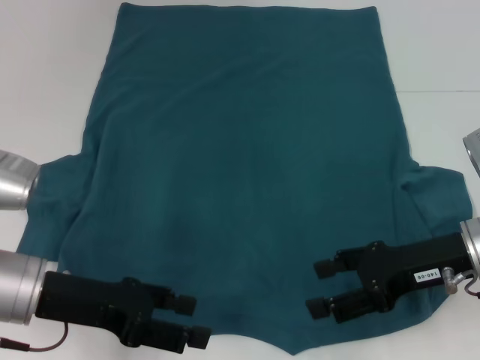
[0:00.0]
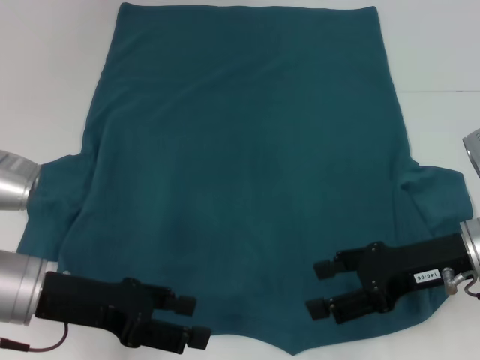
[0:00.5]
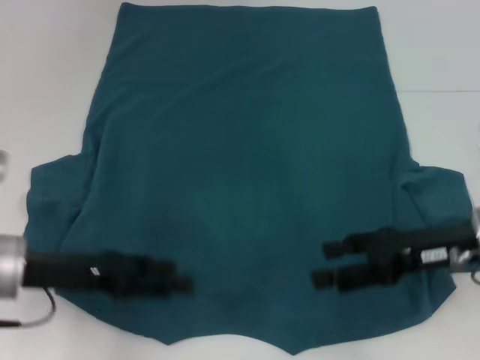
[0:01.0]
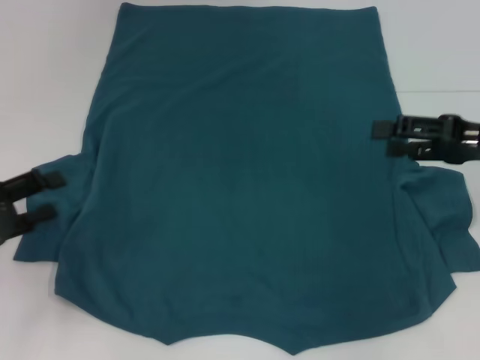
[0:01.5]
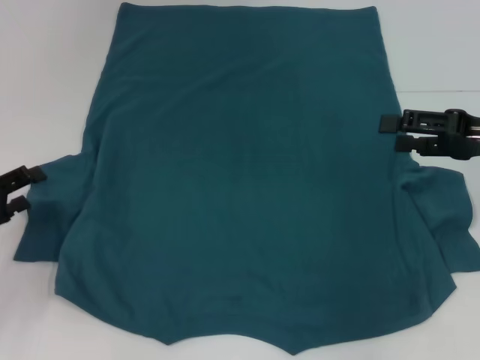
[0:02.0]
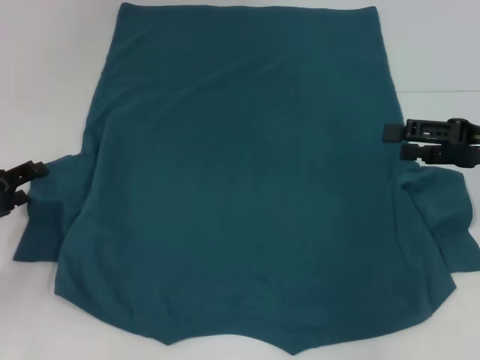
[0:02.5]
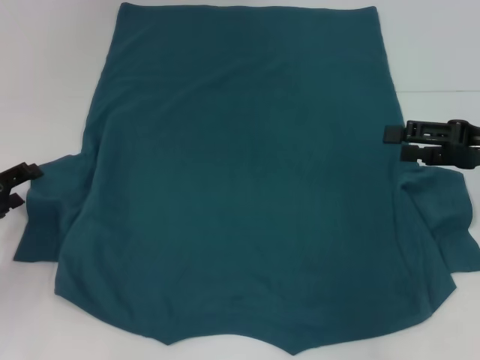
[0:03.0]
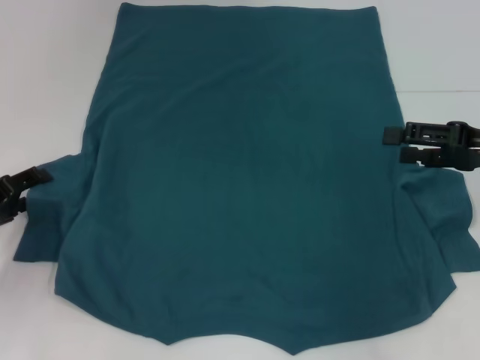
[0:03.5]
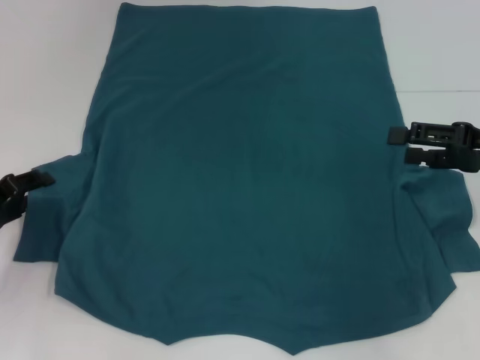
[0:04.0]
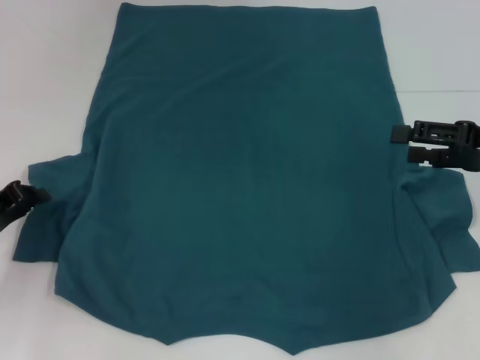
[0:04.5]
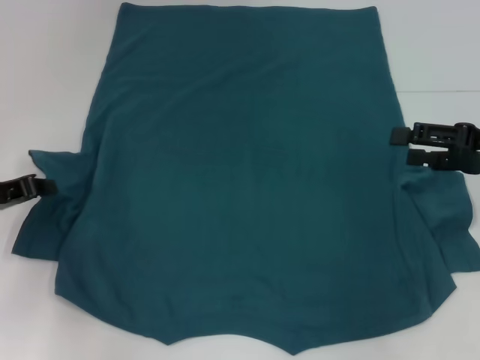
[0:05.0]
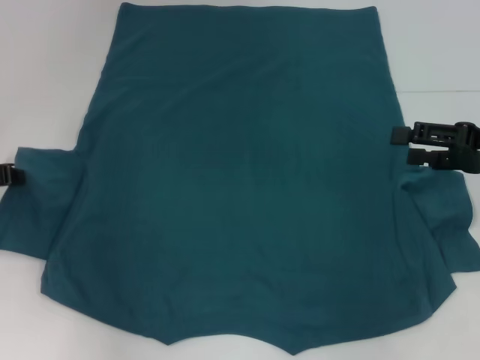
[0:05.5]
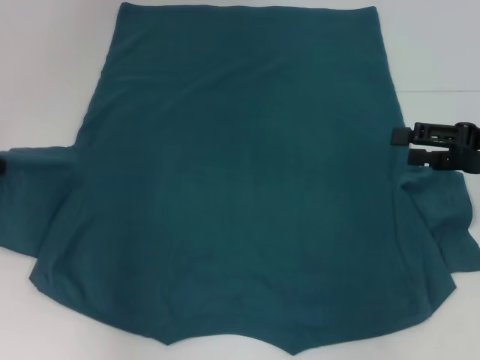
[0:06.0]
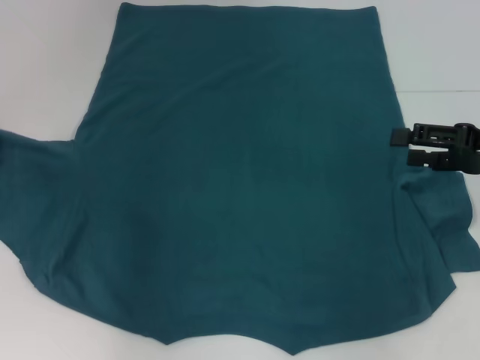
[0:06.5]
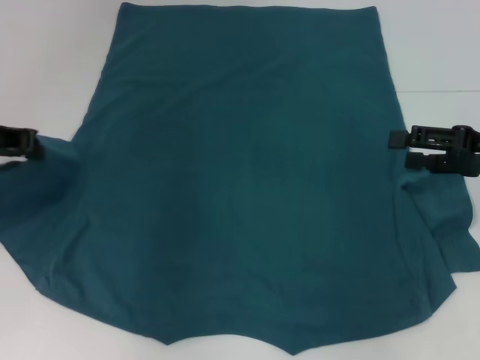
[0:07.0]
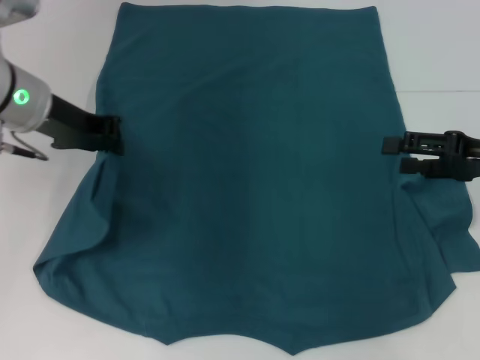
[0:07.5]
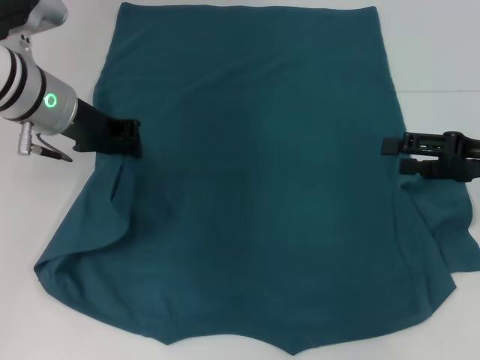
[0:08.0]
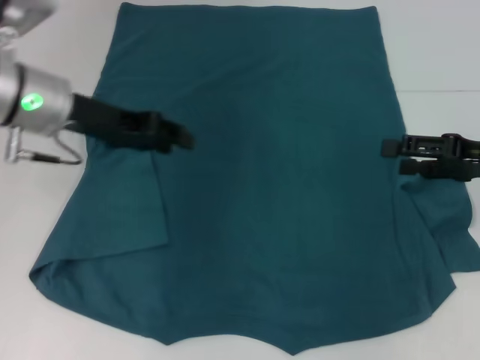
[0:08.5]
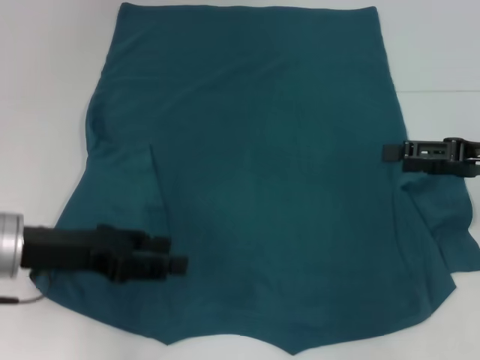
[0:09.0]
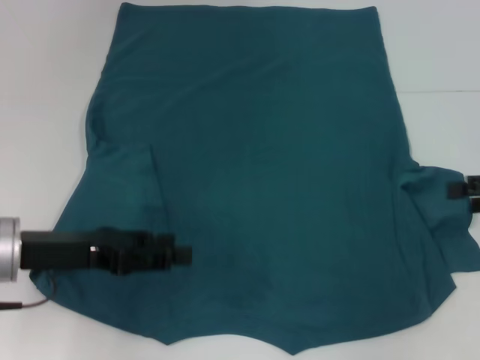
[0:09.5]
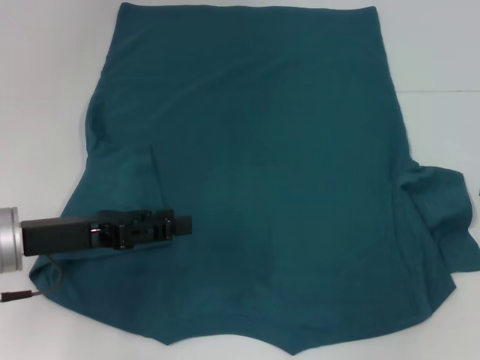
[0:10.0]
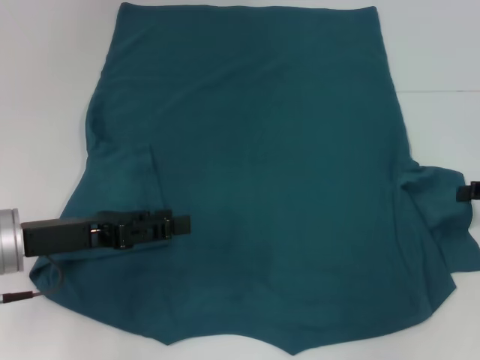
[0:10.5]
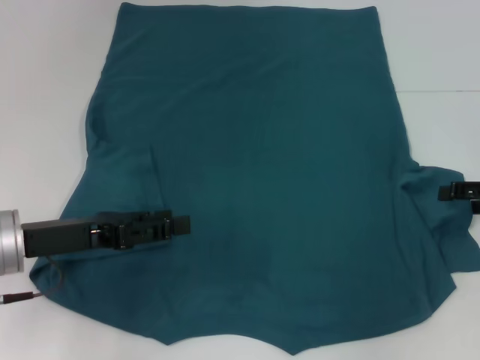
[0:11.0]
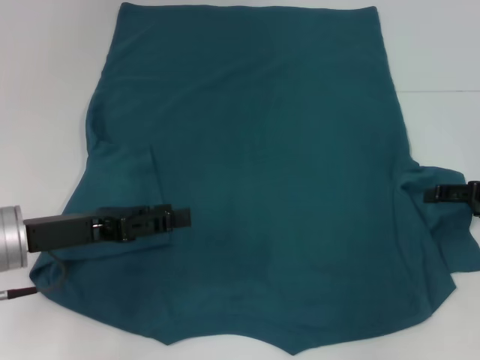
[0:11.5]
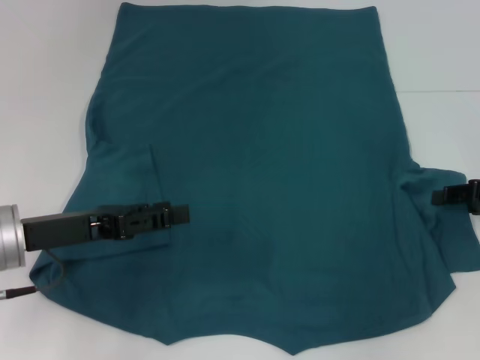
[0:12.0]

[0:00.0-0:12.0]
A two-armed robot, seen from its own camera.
Step, 0:00.0 to 0:08.0: Fold the bottom left sleeve with your left hand.
0:00.0 to 0:02.0: The left gripper shifts roughly 10 cm to the left; the right gripper travels to the right and forward by some 10 cm.
0:02.0 to 0:04.0: There are only small adjustments of the grippers.
0:04.0 to 0:06.0: The left gripper travels upward and forward by approximately 10 cm, and closes up.
0:06.0 to 0:08.0: The left gripper is displaced to the right by some 15 cm.
0:08.0 to 0:10.0: The left gripper goes some 15 cm backward and downward, and opens. Meanwhile the right gripper moves to the right, roughly 10 cm.
0:10.0 to 0:12.0: The right gripper goes approximately 5 cm to the left.

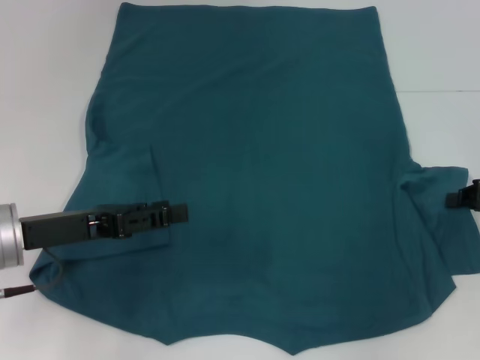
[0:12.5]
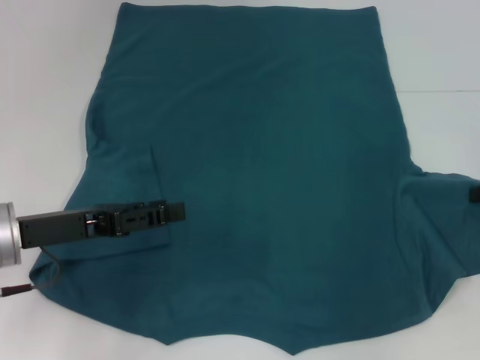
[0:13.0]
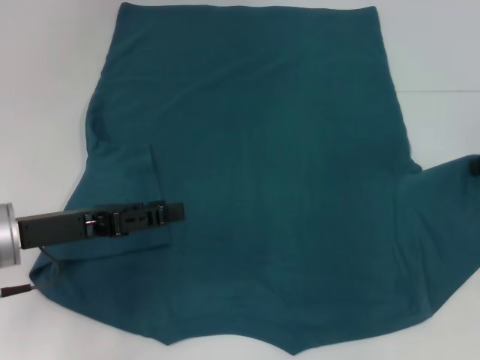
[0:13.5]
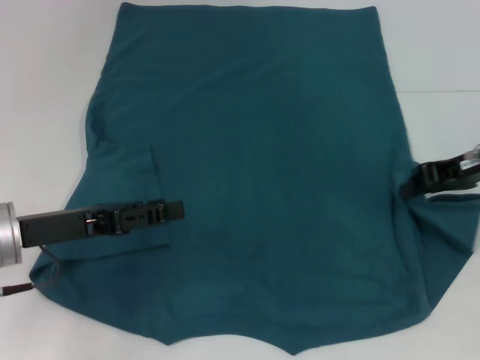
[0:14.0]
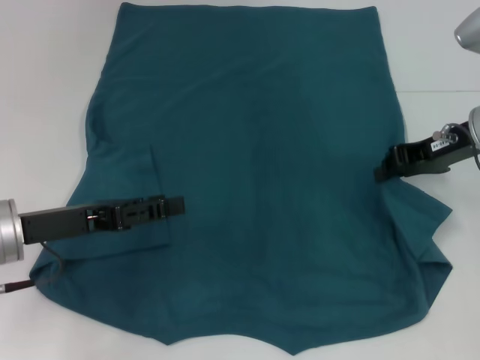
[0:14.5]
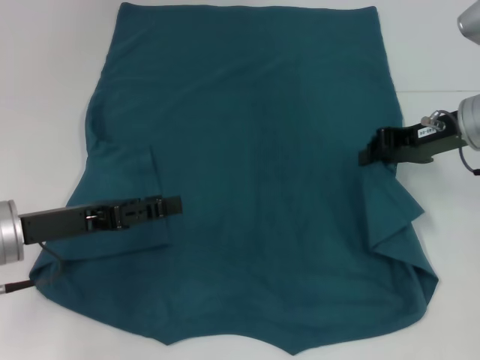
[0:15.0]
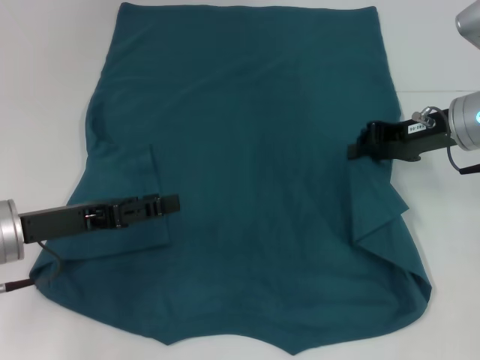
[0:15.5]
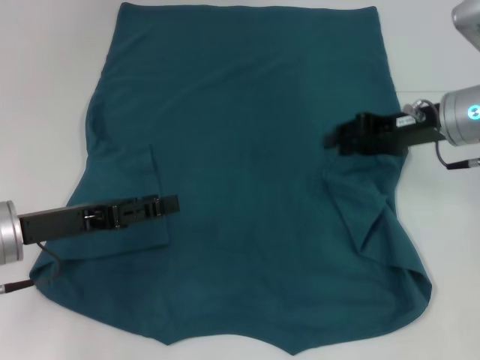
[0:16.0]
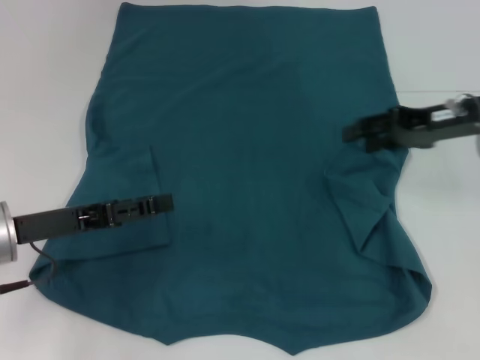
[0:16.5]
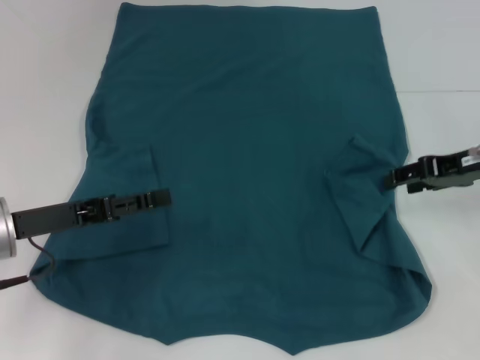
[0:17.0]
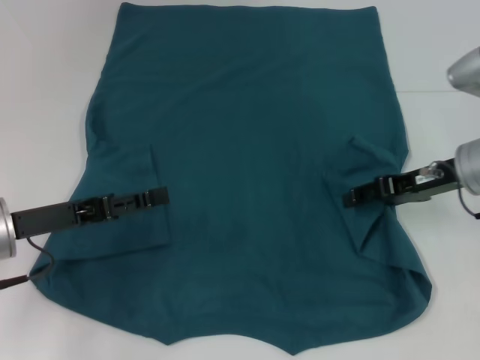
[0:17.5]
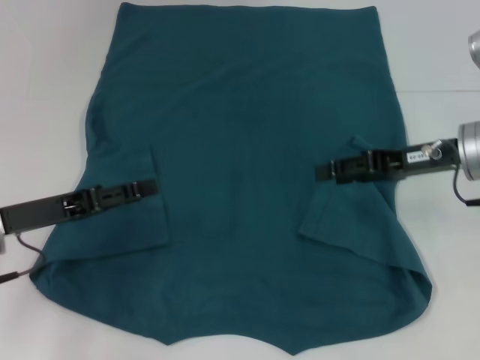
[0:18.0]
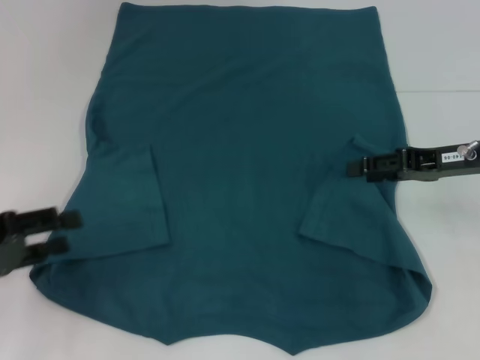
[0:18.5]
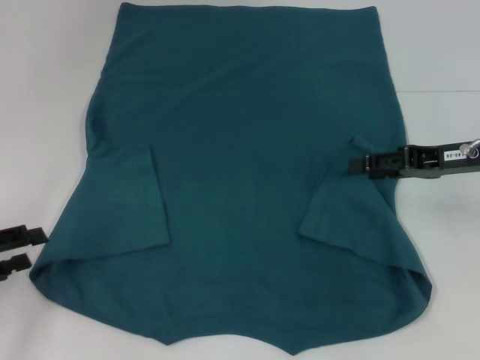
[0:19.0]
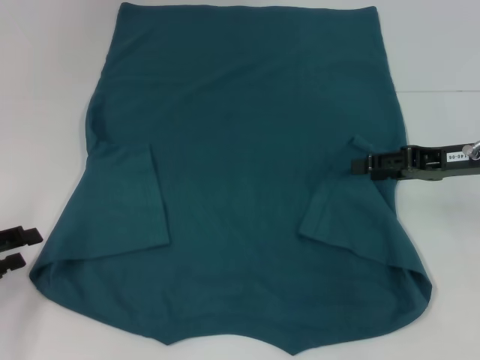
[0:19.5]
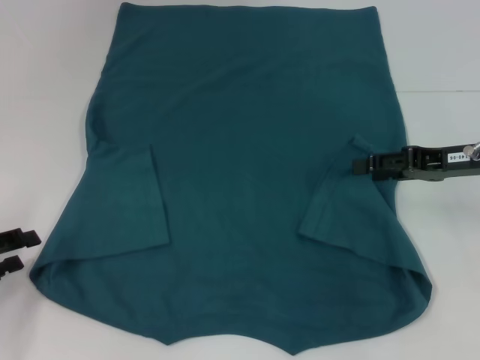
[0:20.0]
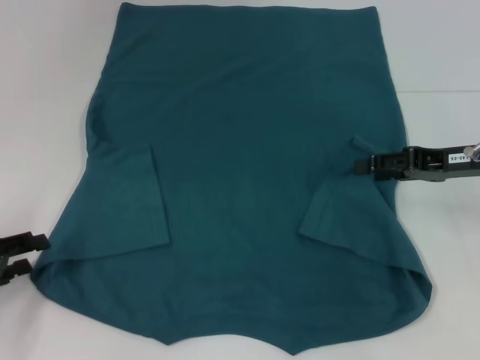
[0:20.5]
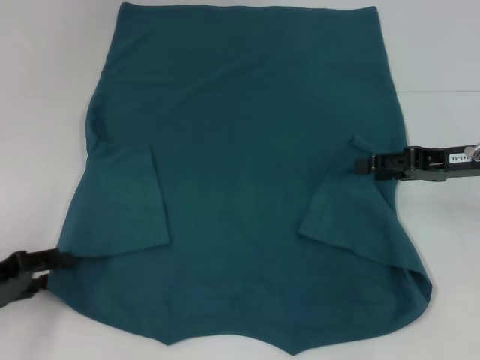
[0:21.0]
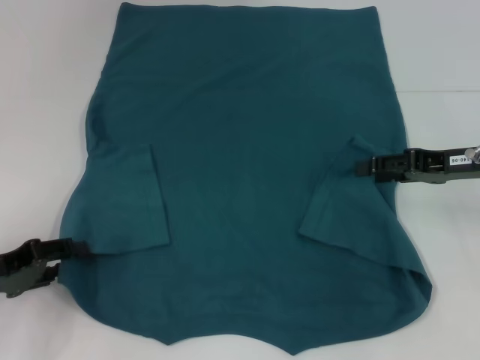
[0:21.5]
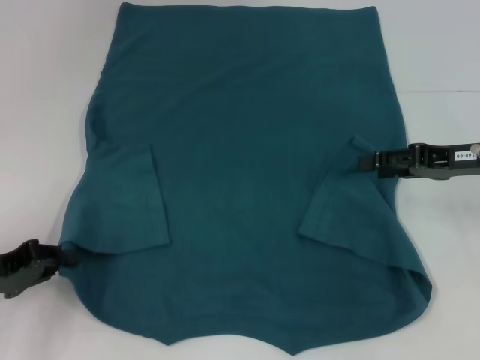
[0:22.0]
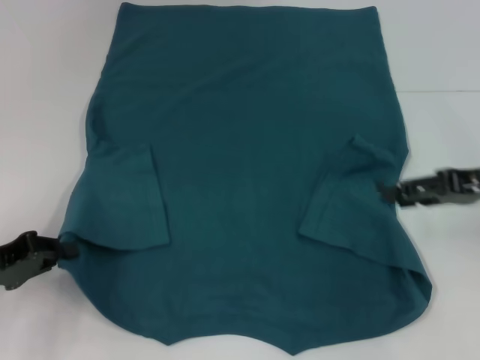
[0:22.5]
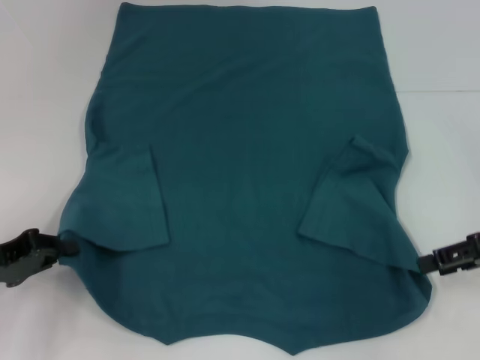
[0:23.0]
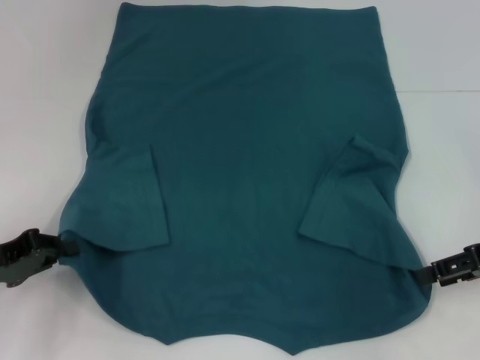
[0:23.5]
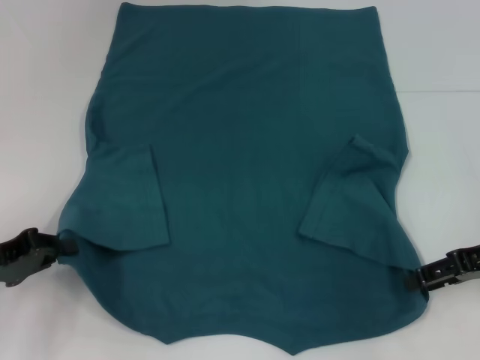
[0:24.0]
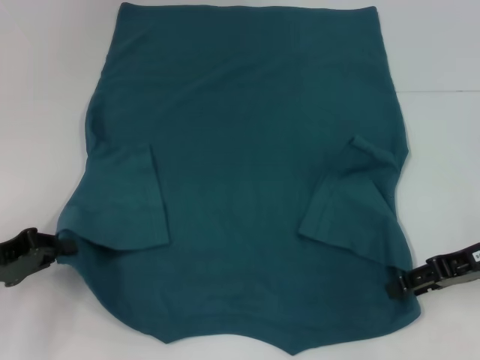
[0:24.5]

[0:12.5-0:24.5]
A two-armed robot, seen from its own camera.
Step, 0:12.5 to 0:17.5: Fold the bottom right sleeve to the right.
Step, 0:18.0 to 0:22.0: Grab the bottom left corner with your left hand.
0:12.5 to 0:14.5: The right gripper goes approximately 15 cm to the left, forward and upward.
0:14.5 to 0:16.5: The right gripper opens.
0:16.5 to 0:18.5: The left gripper heads to the left, covering about 10 cm.
0:18.5 to 0:20.5: There are only small adjustments of the grippers.
0:20.5 to 0:22.5: The left gripper closes up.
0:22.5 to 0:24.5: The grippers move only a little.

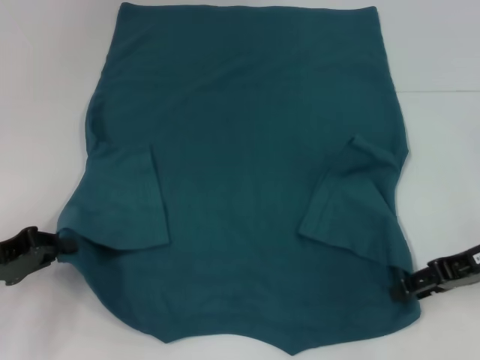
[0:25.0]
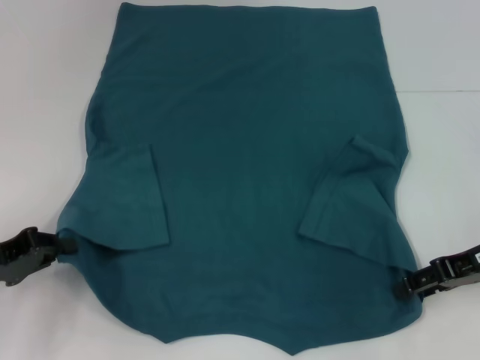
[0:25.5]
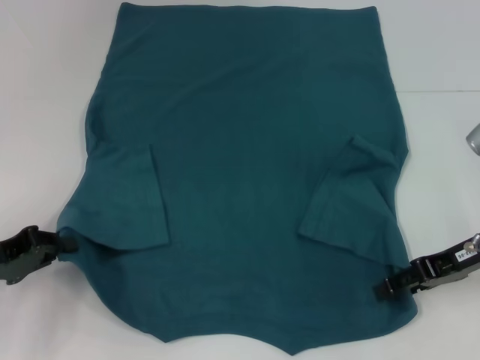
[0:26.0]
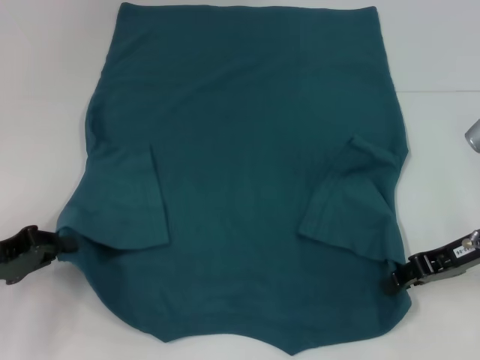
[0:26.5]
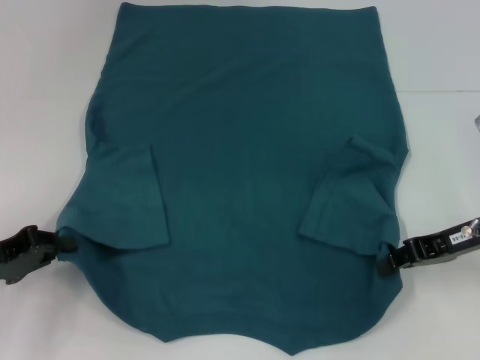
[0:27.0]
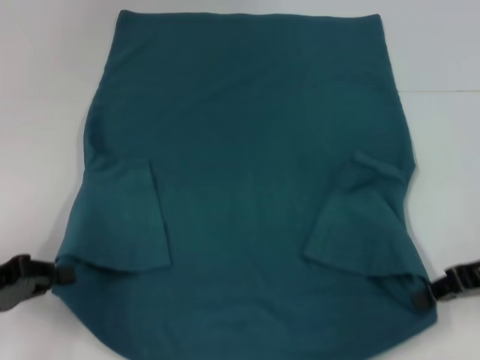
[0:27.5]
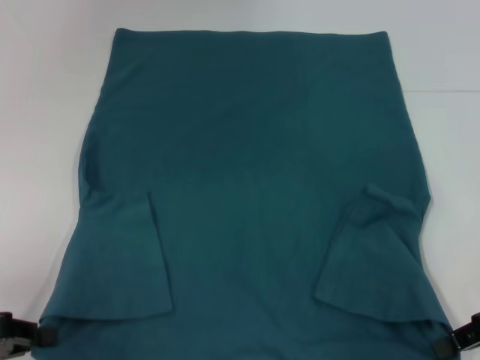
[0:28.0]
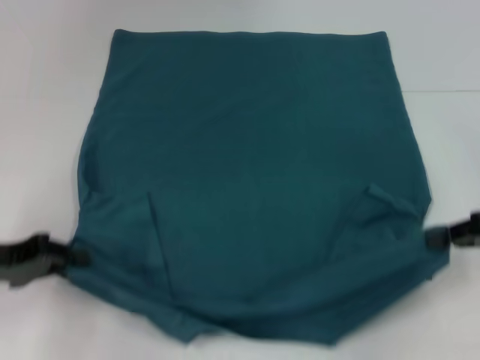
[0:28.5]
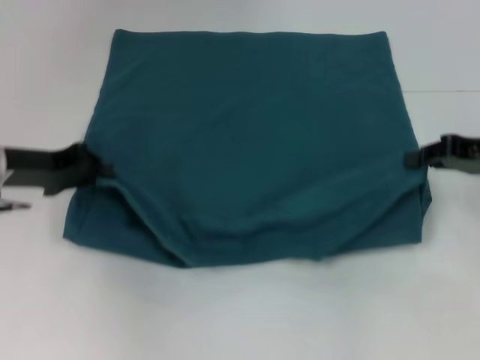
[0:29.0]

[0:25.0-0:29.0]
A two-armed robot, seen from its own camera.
Step, 0:25.0 to 0:27.0: Grab the bottom right corner with your right hand.
0:25.0 to 0:27.0: The right gripper closes up.
0:27.0 to 0:29.0: The left gripper goes about 10 cm forward and upward. The right gripper reaches roughly 5 cm backward, then returns.
